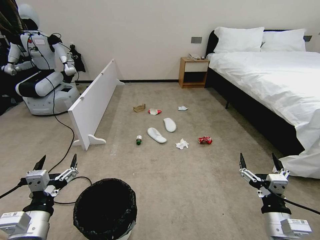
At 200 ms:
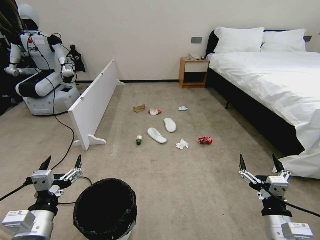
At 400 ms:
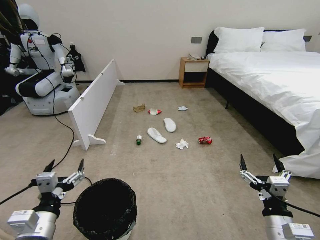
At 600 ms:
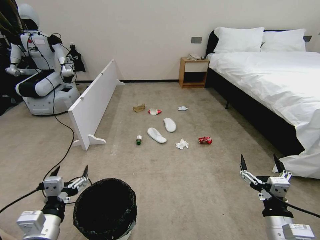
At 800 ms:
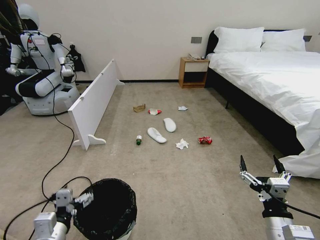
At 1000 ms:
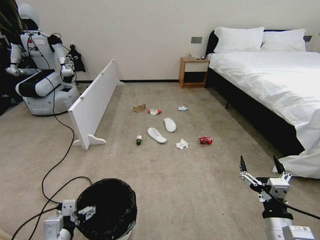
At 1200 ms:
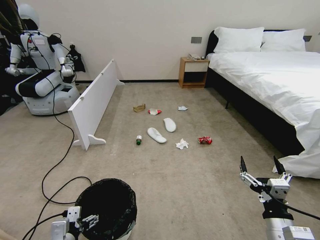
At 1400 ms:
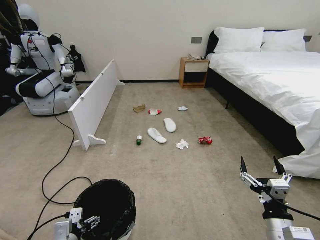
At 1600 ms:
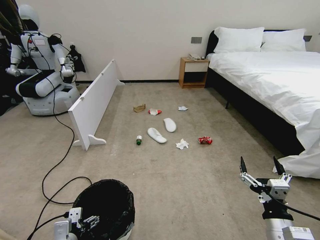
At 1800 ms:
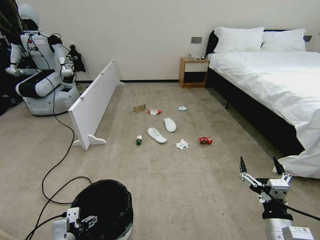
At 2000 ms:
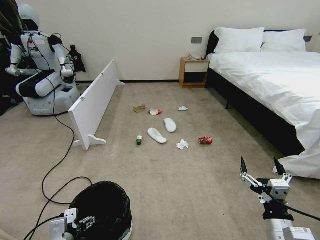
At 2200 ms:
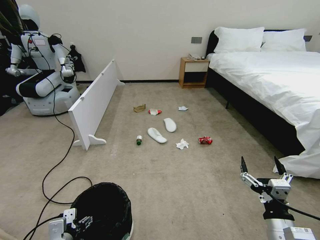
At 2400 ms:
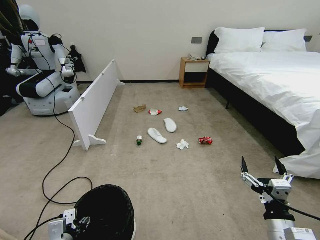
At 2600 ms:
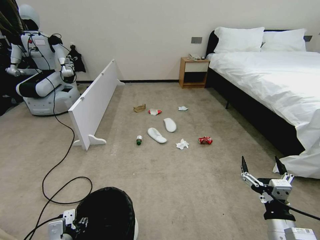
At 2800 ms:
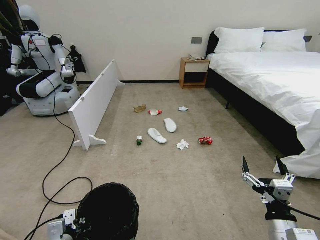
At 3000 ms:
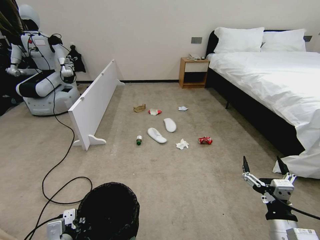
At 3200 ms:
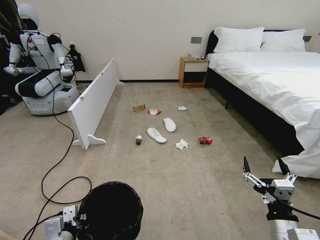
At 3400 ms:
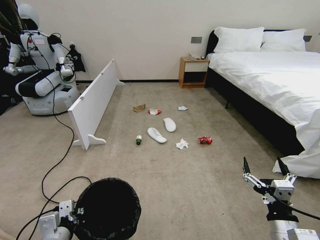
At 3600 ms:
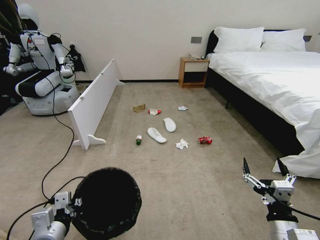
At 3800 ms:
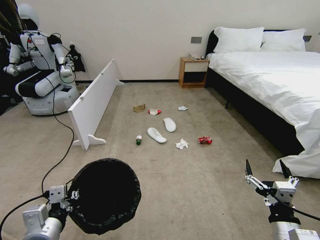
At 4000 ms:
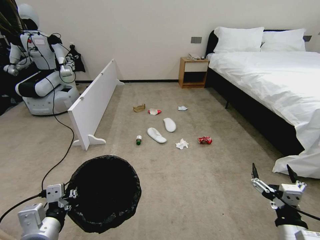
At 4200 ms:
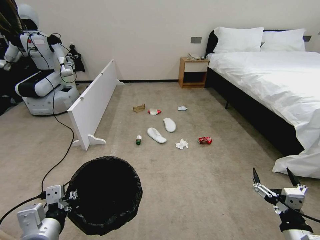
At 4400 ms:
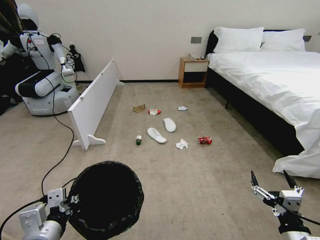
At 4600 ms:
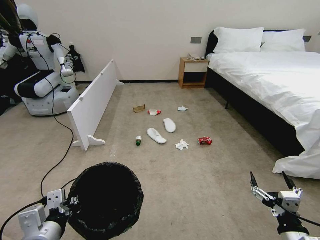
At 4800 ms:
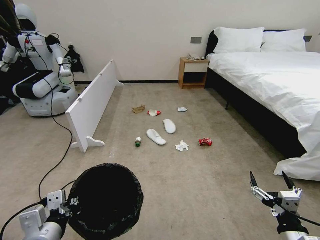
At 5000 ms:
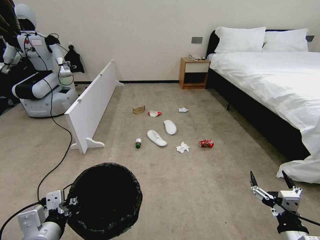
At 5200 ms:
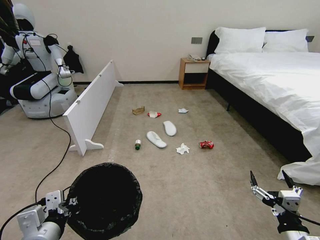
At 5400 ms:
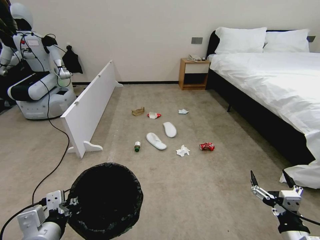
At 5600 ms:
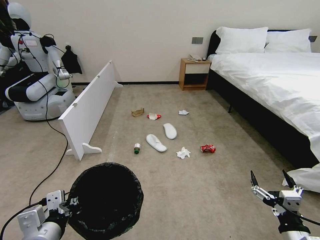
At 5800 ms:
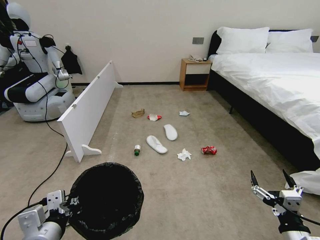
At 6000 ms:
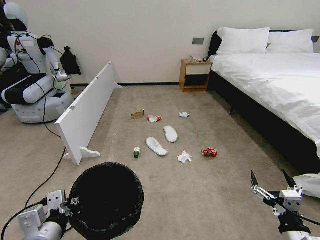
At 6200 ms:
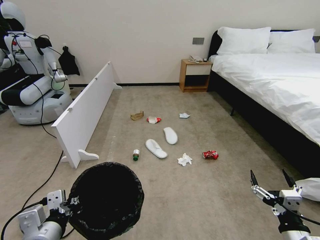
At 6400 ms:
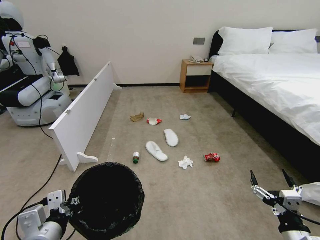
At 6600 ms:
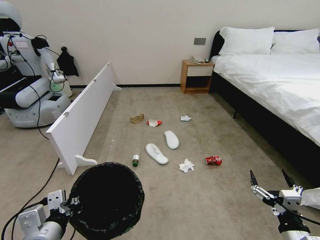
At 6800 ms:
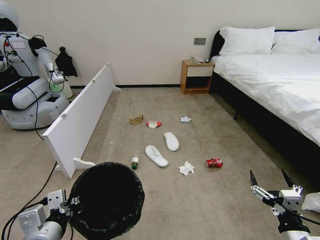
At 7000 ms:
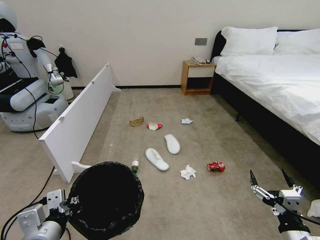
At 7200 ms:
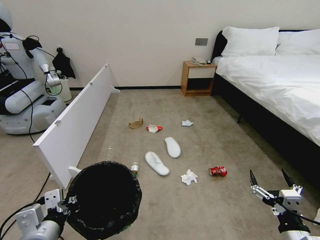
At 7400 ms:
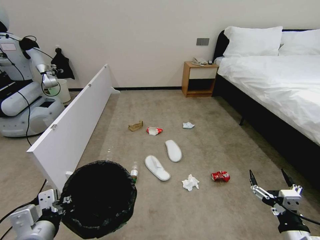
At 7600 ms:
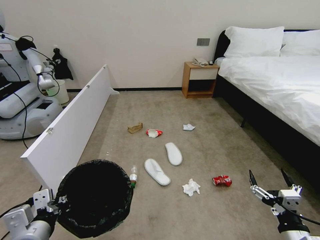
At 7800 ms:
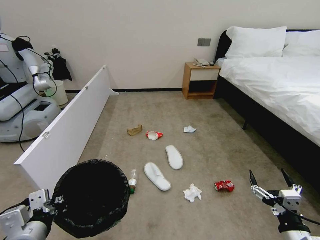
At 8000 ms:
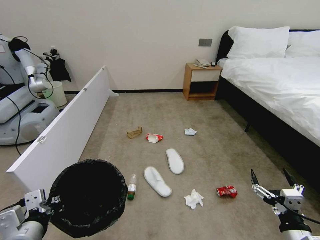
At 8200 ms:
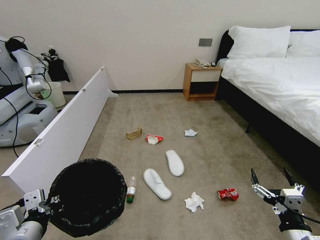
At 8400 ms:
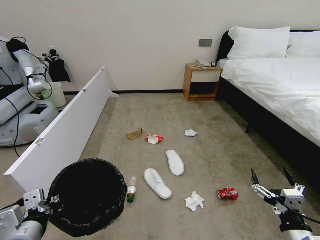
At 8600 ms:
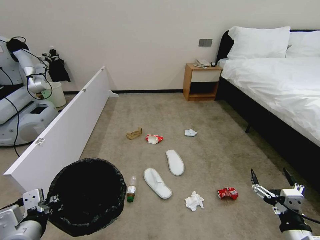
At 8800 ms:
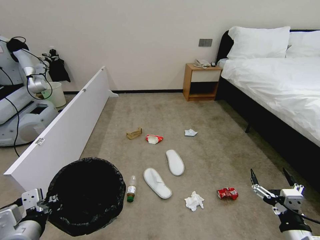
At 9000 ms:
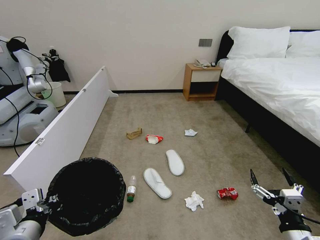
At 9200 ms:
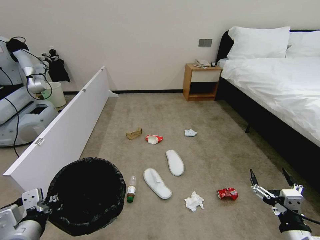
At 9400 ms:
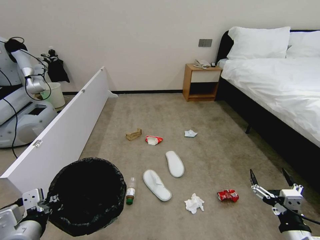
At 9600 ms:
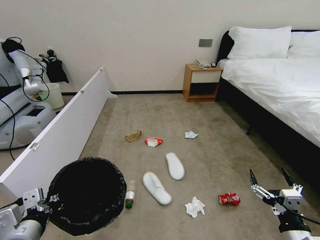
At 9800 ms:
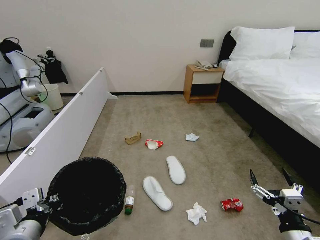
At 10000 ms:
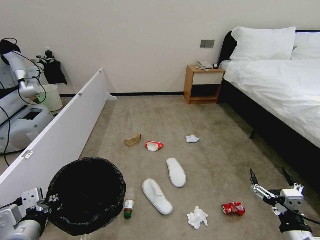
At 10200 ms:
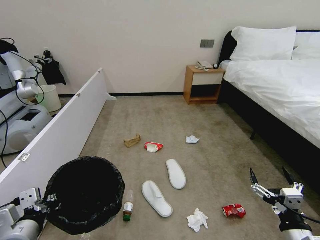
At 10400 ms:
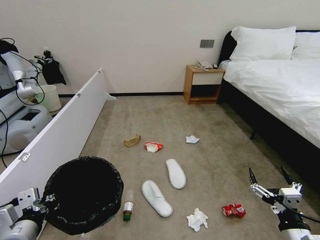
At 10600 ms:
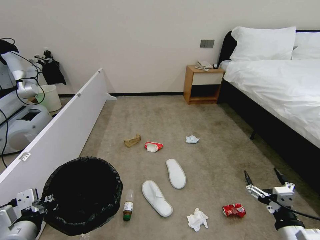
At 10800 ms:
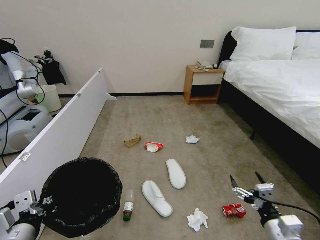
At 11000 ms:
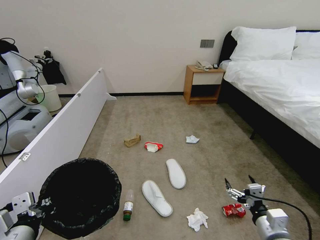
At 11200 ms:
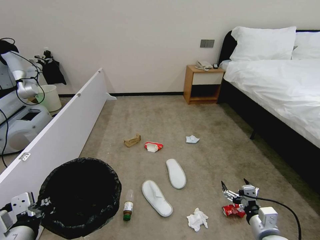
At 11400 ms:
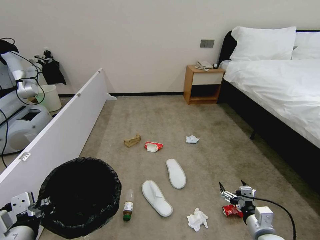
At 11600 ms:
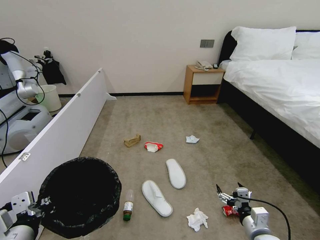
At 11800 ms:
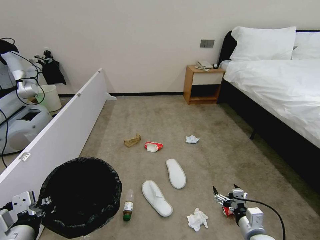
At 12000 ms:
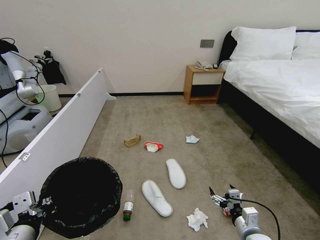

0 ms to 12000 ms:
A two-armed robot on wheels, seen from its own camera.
Task of the whole recording: Pick up the trash bin, then pick up the garbage from the floor and place it into the trash bin.
1600 ms to 3000 ms: The grippers move only a little.
3000 ms to 4400 ms: The left gripper is displaced upward by approximately 15 cm, and closes its fingers.
4400 ms to 6000 ms: Neither gripper changes place.
7600 ms to 9000 ms: The grippers make only small movements.
9000 ms to 10400 ms: The two grippers keep their place.
10400 ms to 12000 ms: The right gripper shifts some 15 cm downward, forward and to the left.

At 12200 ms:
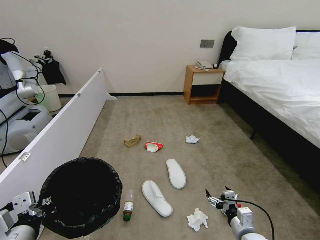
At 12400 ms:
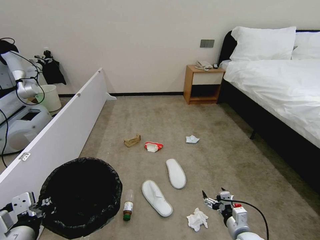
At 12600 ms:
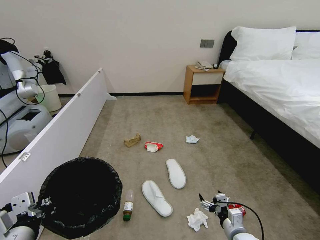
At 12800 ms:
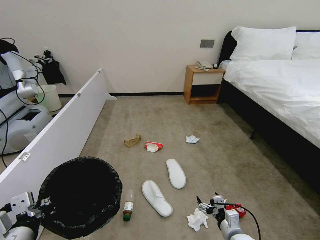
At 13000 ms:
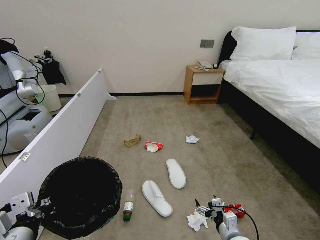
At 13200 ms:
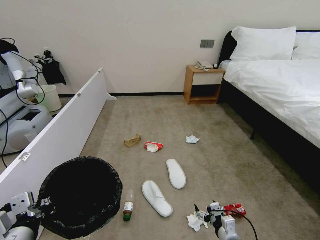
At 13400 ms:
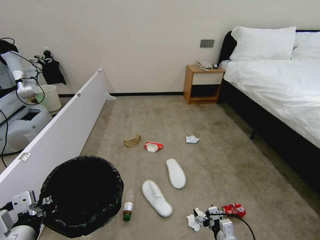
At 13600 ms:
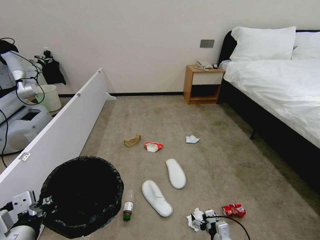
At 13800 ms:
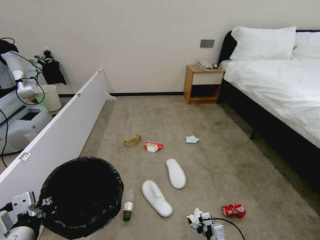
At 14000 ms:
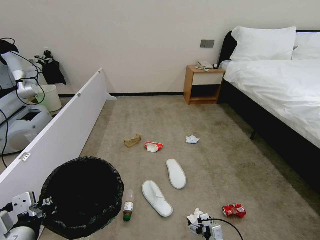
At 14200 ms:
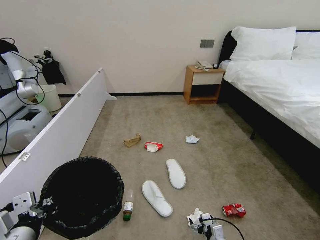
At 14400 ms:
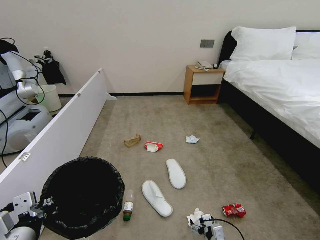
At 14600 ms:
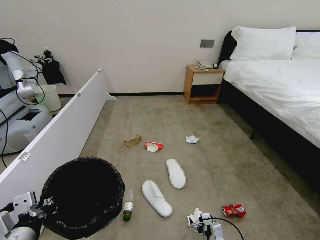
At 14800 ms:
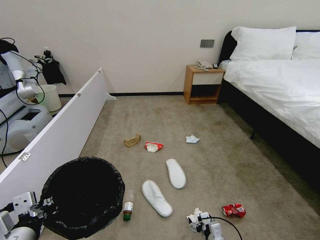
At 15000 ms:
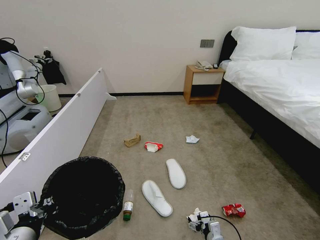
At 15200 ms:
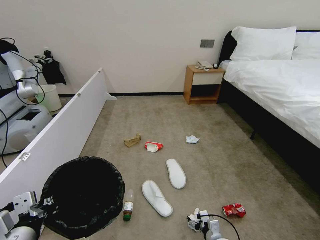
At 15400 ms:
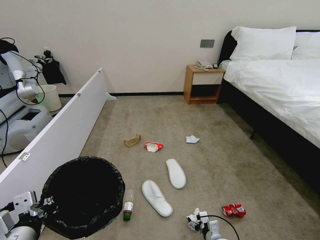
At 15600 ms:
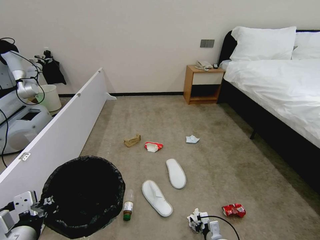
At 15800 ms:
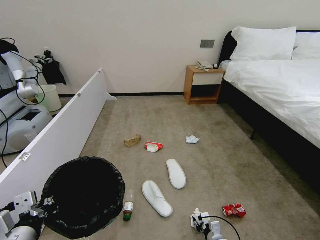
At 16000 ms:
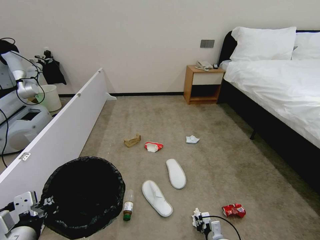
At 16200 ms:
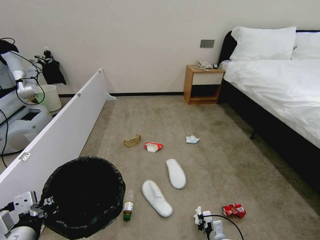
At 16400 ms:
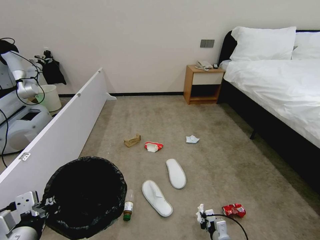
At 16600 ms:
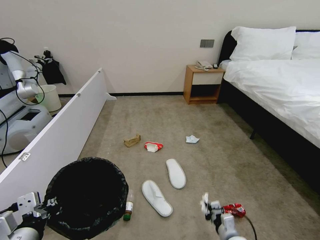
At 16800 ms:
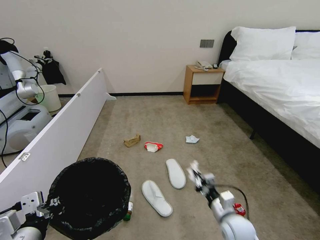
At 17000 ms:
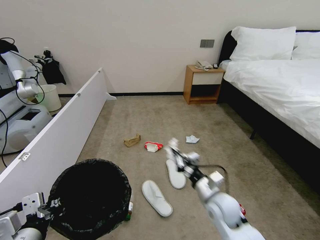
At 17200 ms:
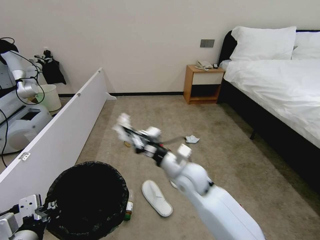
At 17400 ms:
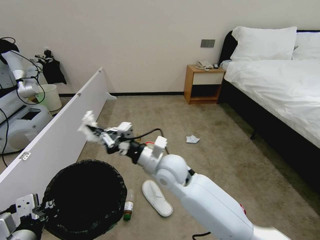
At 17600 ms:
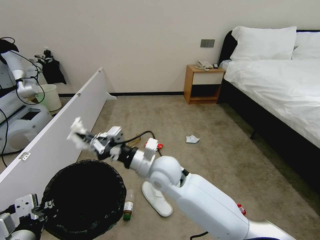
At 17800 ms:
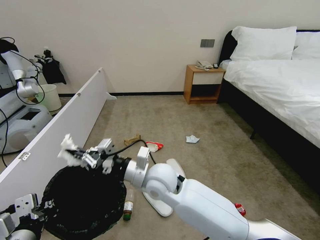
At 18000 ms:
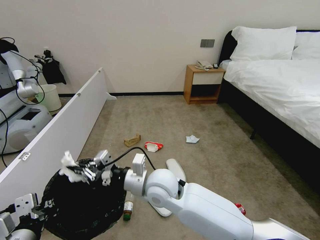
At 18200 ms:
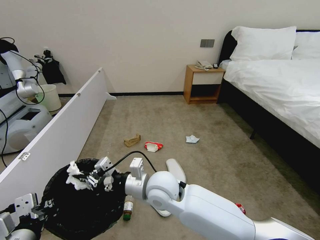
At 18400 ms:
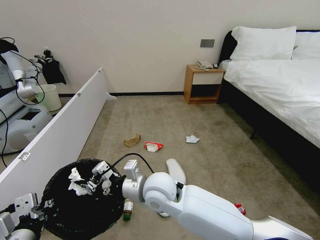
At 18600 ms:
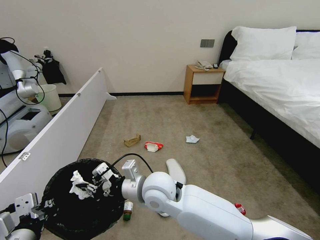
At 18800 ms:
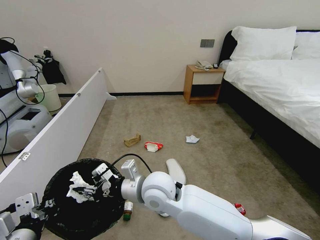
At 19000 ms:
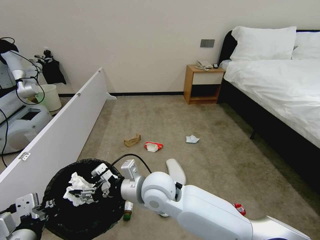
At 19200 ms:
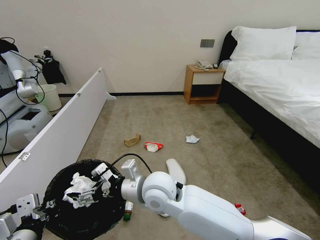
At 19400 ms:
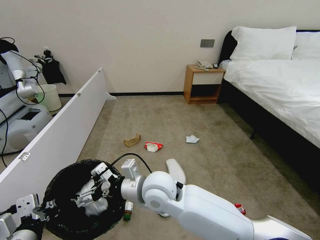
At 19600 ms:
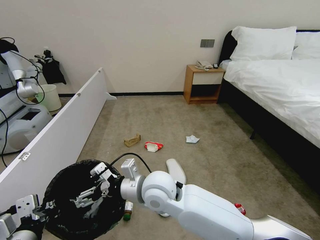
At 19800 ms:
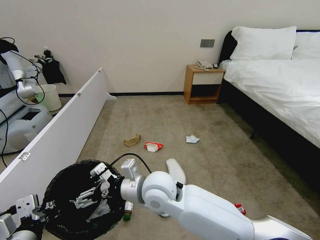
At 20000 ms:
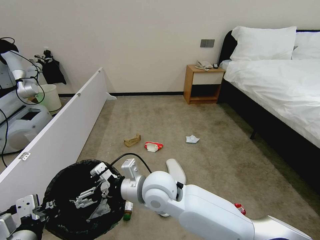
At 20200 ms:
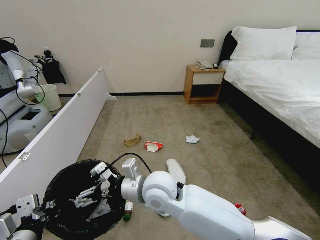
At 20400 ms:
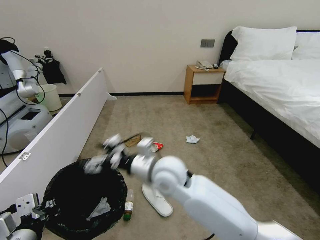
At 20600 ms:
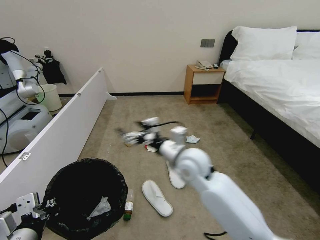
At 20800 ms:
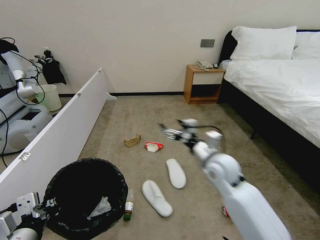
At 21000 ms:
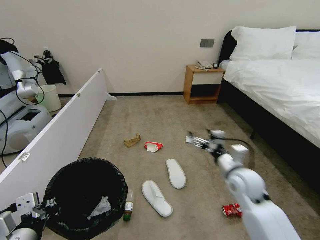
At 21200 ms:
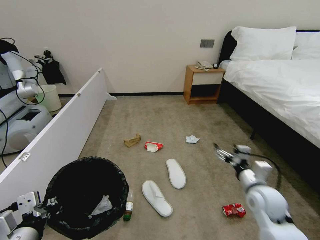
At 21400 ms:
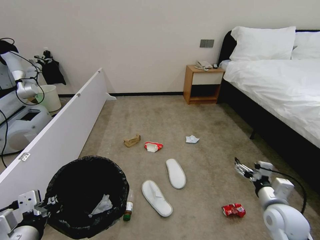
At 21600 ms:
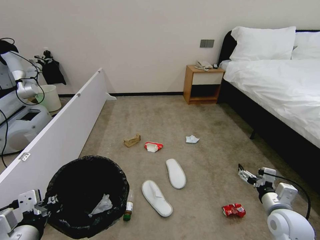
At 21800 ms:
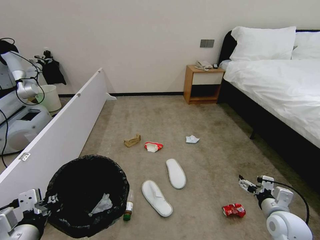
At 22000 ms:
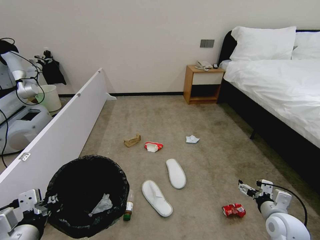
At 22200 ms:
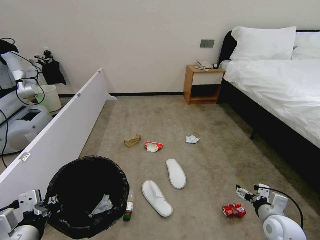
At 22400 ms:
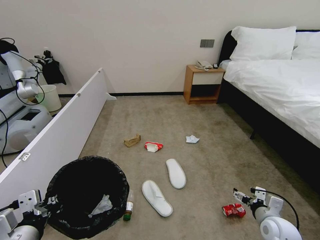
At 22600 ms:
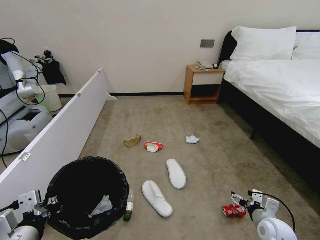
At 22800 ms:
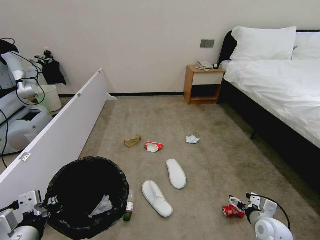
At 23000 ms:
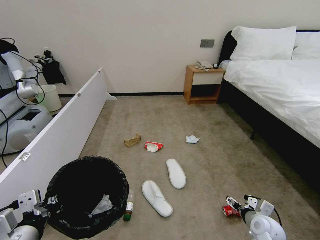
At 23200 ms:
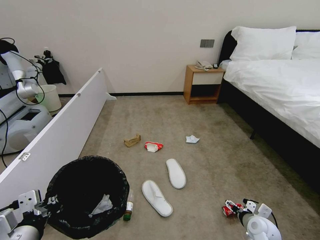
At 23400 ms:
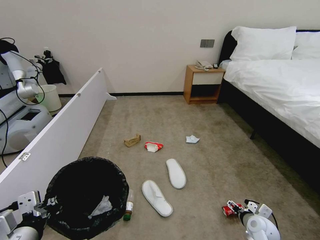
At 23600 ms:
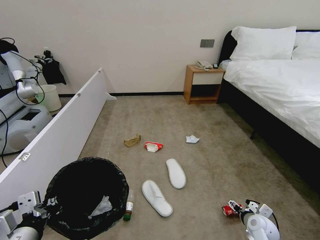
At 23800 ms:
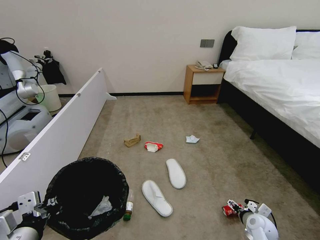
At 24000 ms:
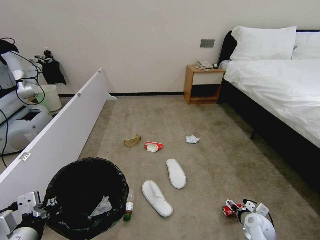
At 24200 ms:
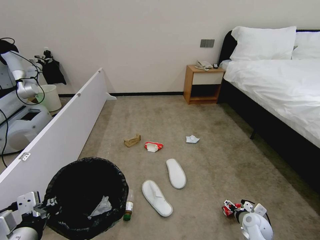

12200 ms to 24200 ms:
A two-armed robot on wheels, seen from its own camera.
Task of the whole recording: Pick up the trash bin, then pick up the garbage from the floor and place it into the trash bin.
12200 ms to 13800 ms: The right gripper is displaced downward by approximately 10 cm.
13800 ms to 15200 ms: The grippers make only small movements.
15200 ms to 16600 ms: The right gripper shifts about 5 cm upward, and closes its fingers.
16600 ms to 18200 ms: The right gripper goes roughly 40 cm to the left and upward.
18200 ms to 19800 ms: The right gripper opens.
19800 ms to 21200 ms: The right gripper travels to the right by some 35 cm.
21200 ms to 22600 ms: The right gripper is displaced downward by approximately 10 cm.
22600 ms to 24200 ms: The right gripper travels downward and forward by some 10 cm.
